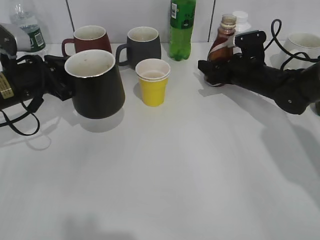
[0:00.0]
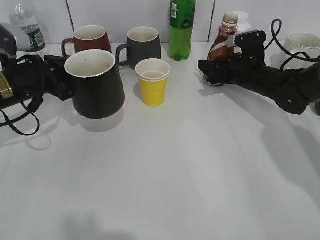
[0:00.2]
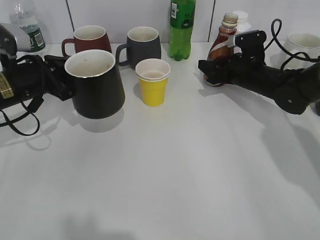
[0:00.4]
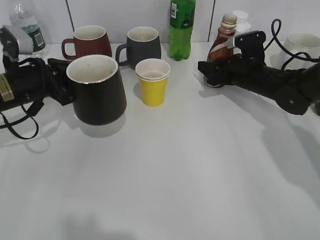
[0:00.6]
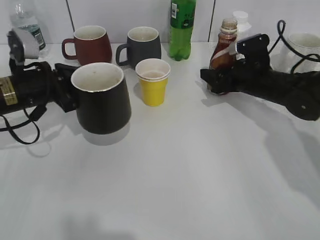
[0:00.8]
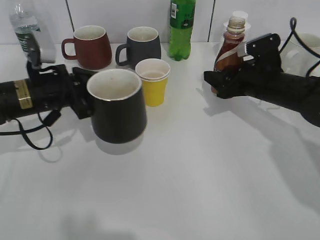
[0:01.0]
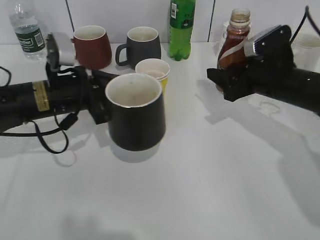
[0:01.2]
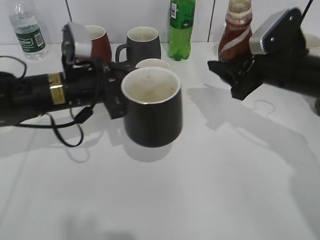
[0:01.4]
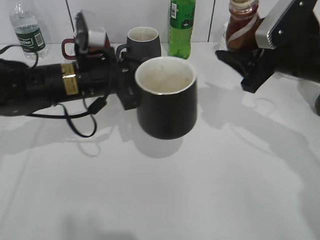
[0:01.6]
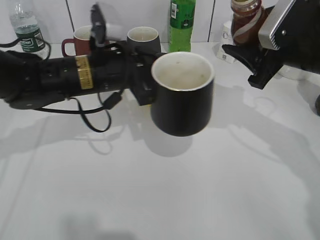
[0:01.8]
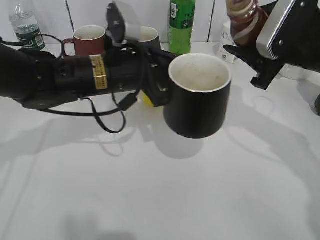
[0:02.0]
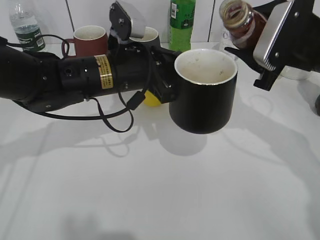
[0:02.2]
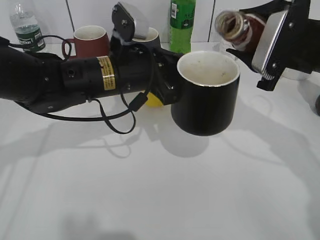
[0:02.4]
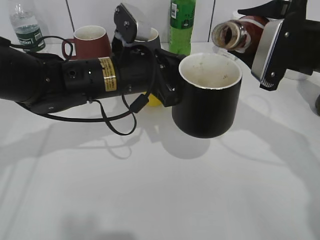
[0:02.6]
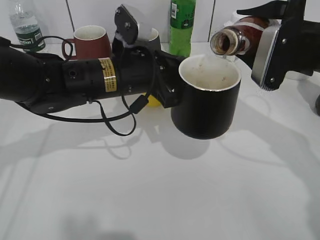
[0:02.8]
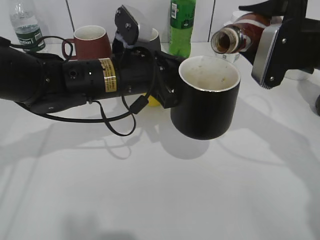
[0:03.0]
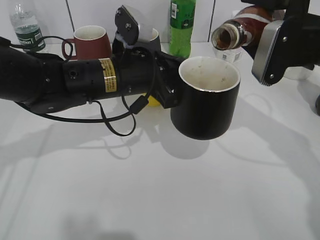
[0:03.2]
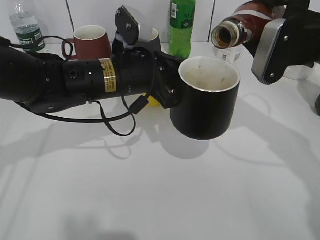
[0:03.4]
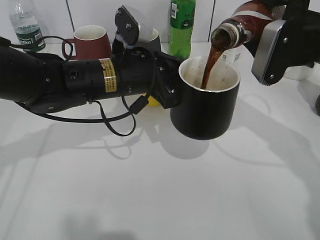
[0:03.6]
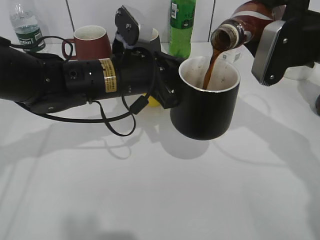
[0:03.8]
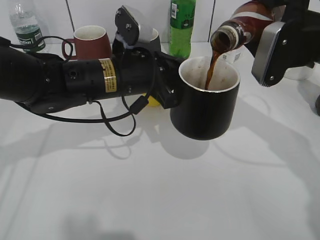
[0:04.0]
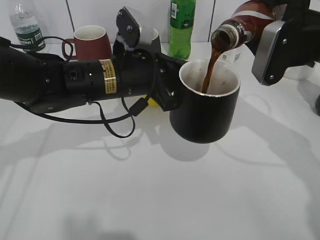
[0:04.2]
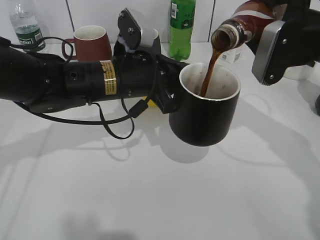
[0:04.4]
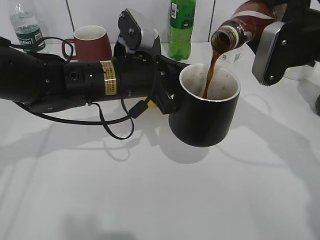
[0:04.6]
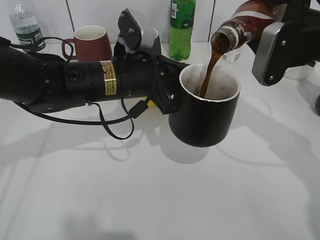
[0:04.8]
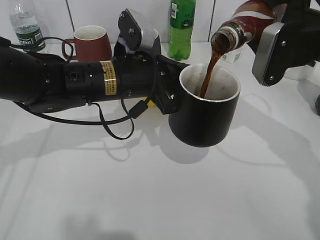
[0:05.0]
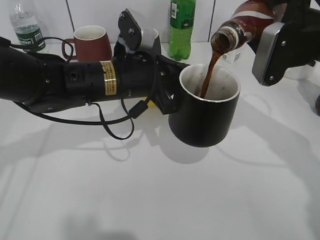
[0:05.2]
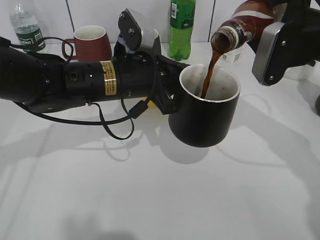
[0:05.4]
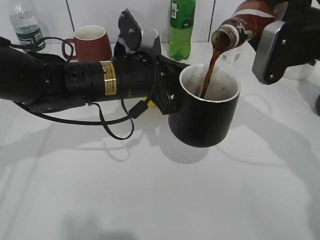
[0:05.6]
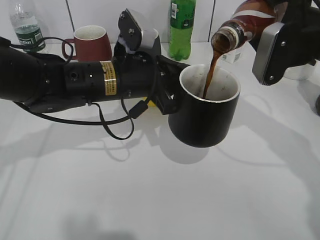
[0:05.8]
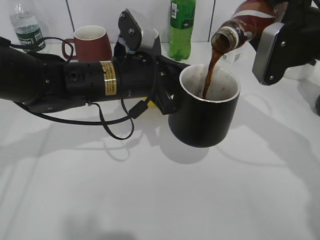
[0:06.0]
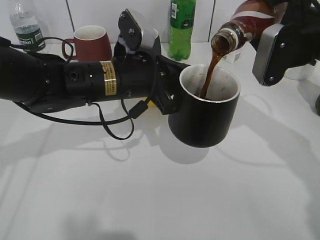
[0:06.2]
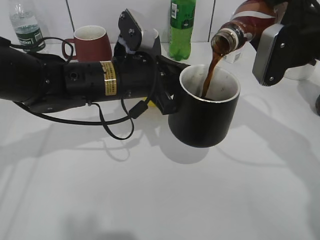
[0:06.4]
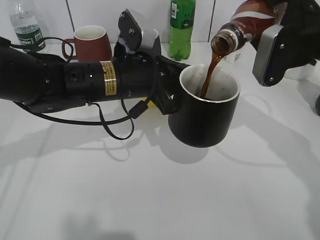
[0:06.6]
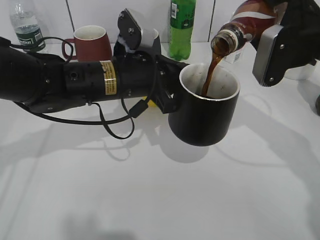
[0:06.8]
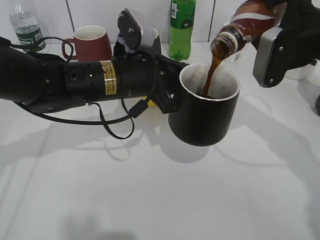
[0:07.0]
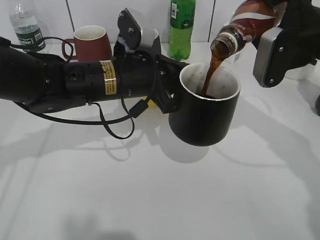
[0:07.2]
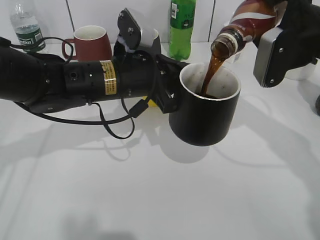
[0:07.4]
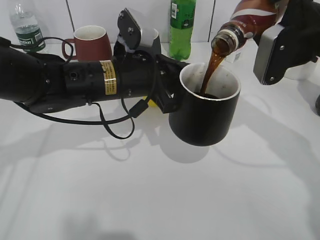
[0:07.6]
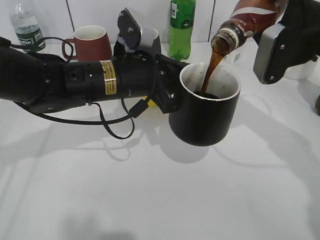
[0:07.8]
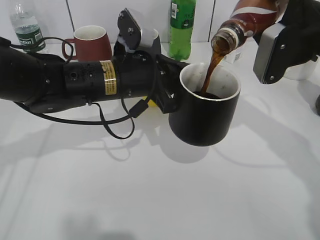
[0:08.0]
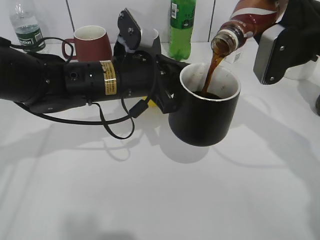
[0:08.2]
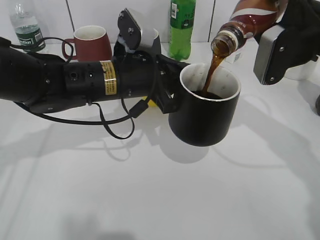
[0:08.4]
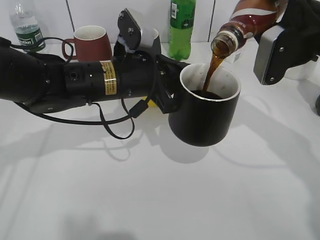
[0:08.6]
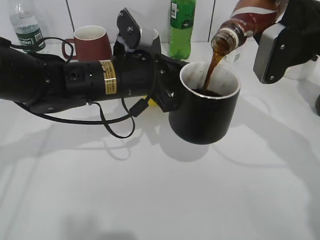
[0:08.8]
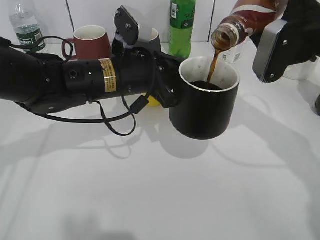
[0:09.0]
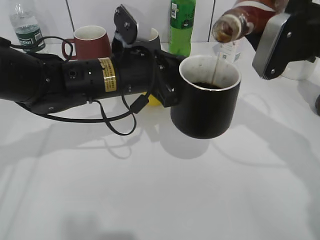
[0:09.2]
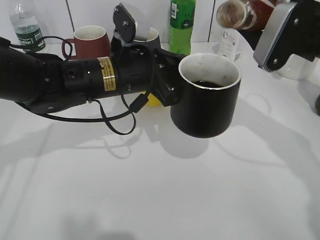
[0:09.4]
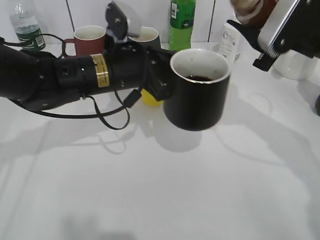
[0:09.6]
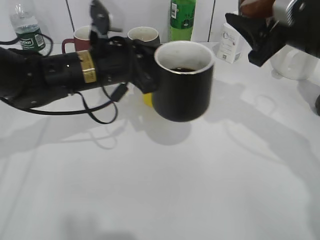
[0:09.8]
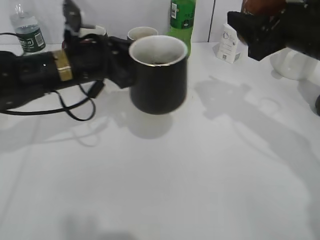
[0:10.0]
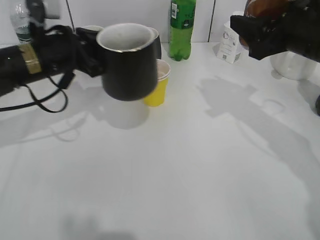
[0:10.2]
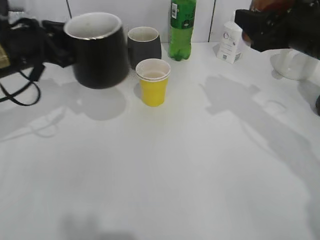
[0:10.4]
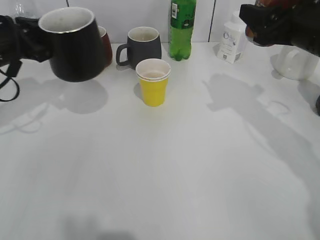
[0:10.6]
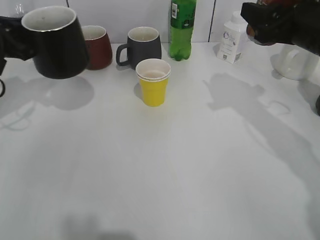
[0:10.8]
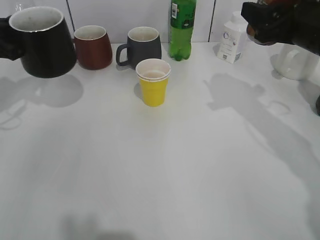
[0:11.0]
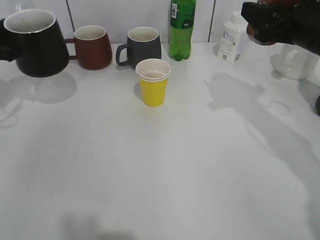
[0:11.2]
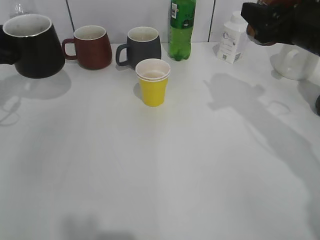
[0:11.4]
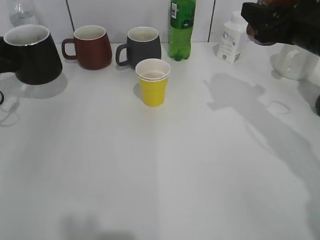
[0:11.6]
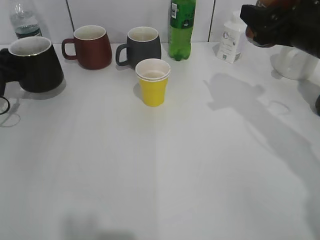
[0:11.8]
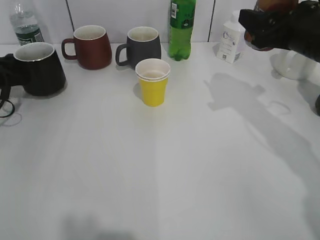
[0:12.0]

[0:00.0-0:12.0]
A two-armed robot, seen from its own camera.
Step, 0:00.8 to 0:09.2: Pour the coffee from bottle to cup with right gripper.
0:00.0 to 0:01.6: The right gripper moves backward and upward, some 20 cm; the left gripper travels to the right by about 10 cm.
0:01.6 to 0:03.0: The left gripper goes approximately 5 cm to the right.
0:03.0 to 0:04.4: The grippers stay close to where they were, moving slightly.
0:04.4 to 0:06.0: Both grippers stay put.
0:06.0 to 0:07.6: The grippers make only small movements.
0:07.6 to 0:09.0: The two grippers keep their place.
0:09.0 to 0:10.4: The left gripper is displaced to the left by about 15 cm.
0:10.4 to 0:12.0: The left gripper shifts some 20 cm to the left, downward and forward.

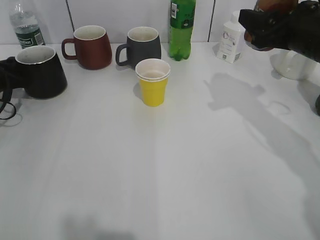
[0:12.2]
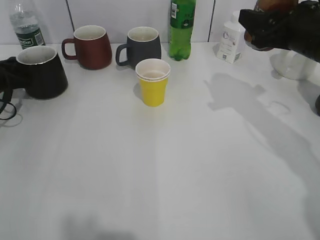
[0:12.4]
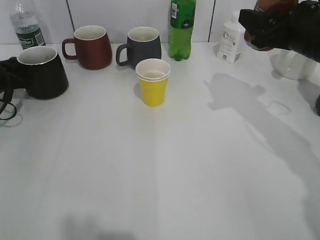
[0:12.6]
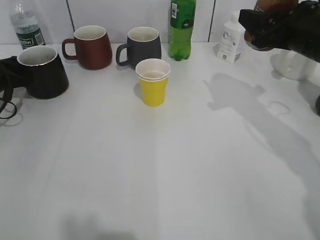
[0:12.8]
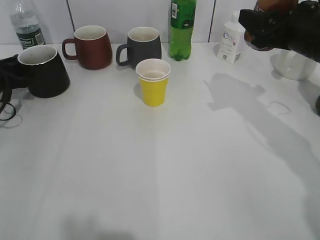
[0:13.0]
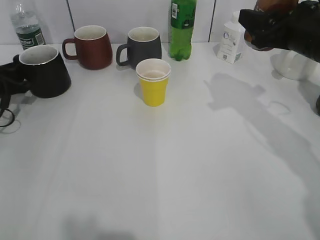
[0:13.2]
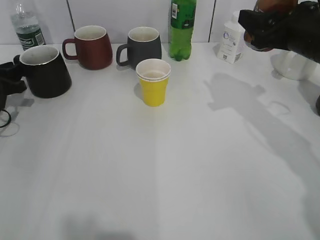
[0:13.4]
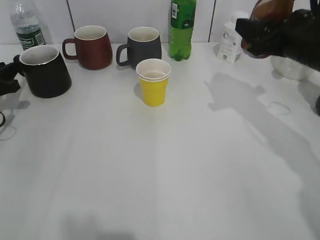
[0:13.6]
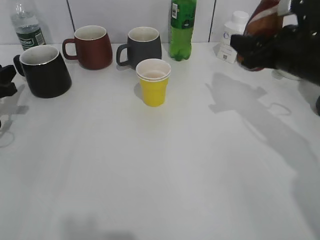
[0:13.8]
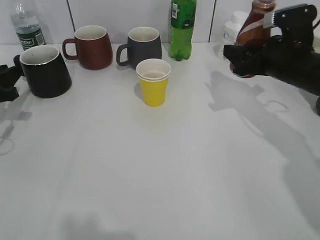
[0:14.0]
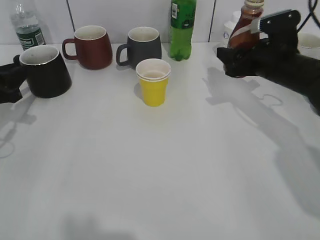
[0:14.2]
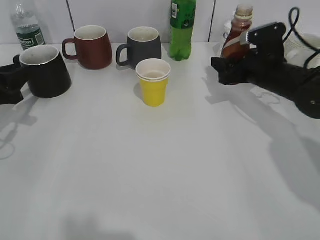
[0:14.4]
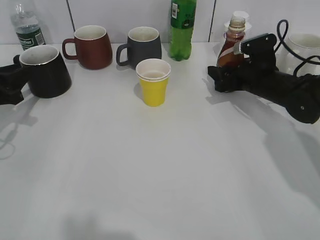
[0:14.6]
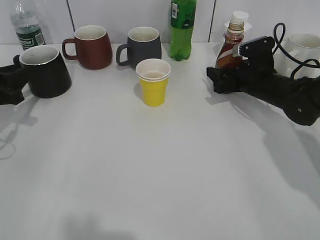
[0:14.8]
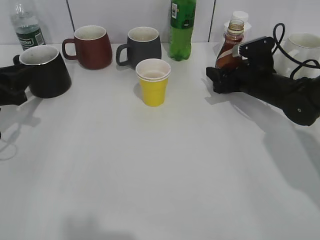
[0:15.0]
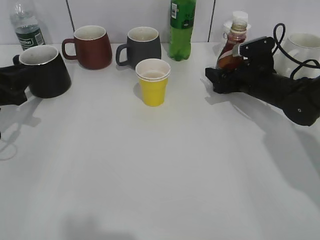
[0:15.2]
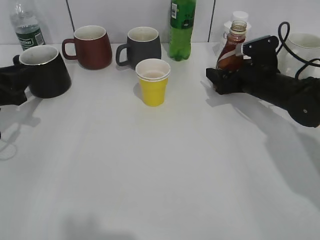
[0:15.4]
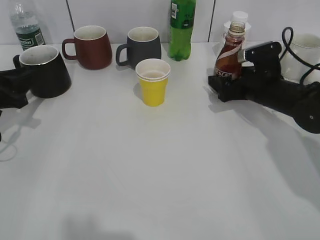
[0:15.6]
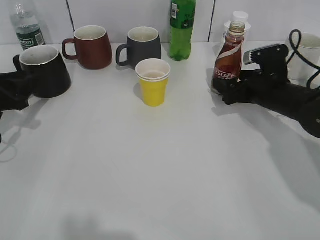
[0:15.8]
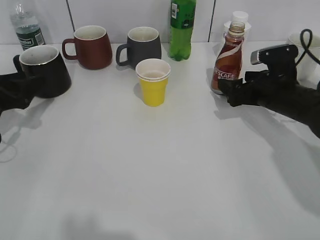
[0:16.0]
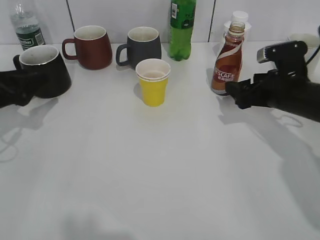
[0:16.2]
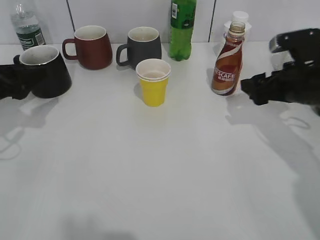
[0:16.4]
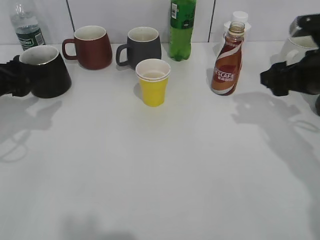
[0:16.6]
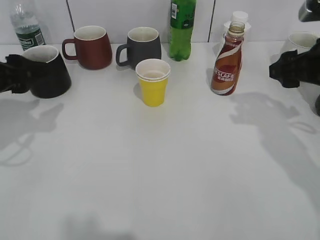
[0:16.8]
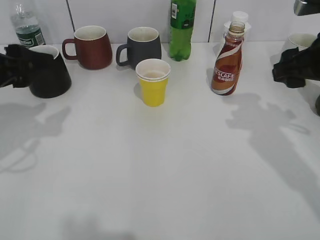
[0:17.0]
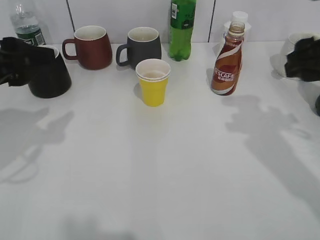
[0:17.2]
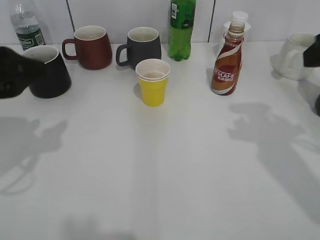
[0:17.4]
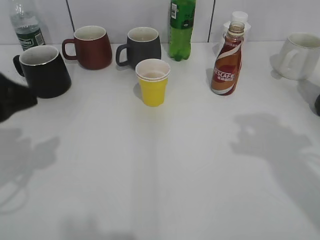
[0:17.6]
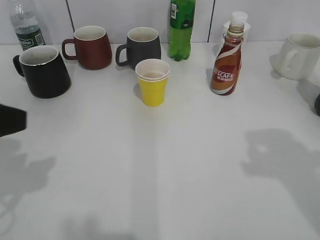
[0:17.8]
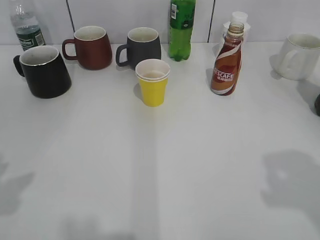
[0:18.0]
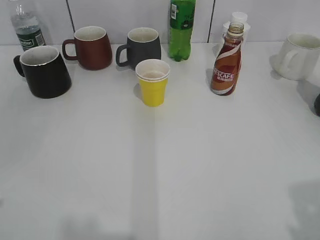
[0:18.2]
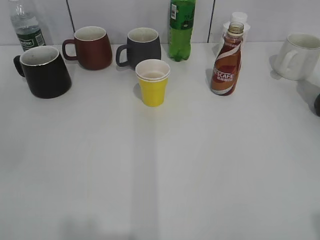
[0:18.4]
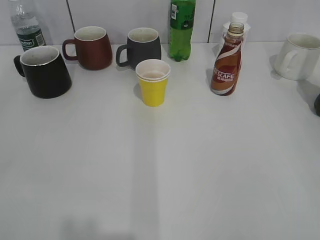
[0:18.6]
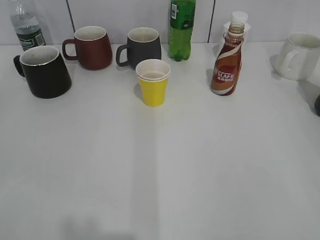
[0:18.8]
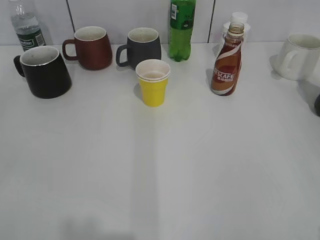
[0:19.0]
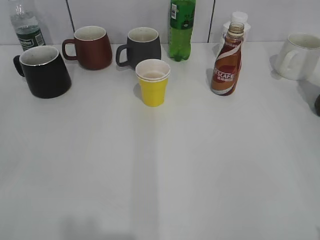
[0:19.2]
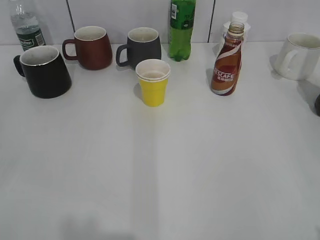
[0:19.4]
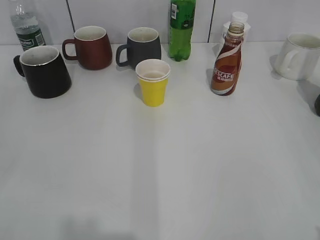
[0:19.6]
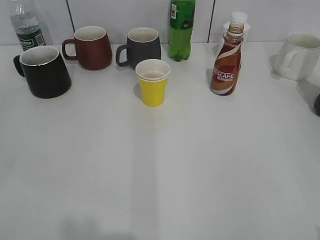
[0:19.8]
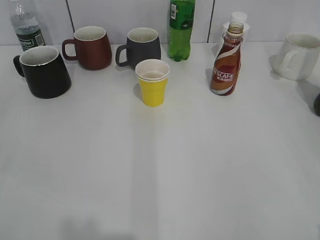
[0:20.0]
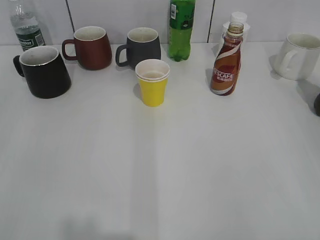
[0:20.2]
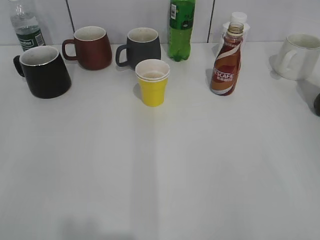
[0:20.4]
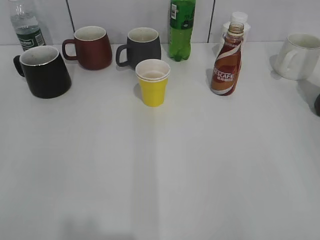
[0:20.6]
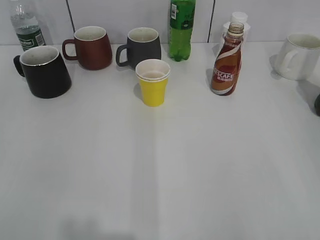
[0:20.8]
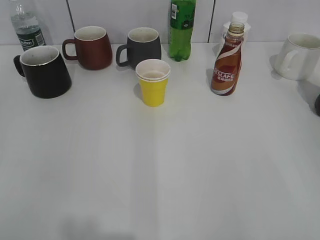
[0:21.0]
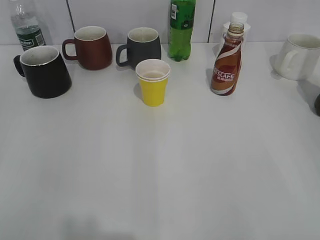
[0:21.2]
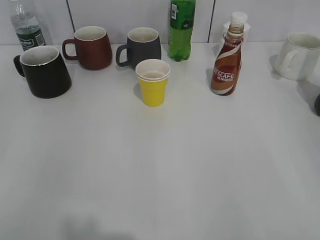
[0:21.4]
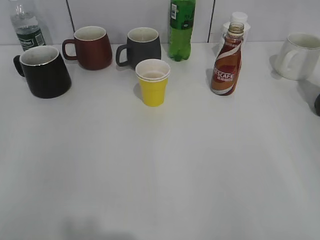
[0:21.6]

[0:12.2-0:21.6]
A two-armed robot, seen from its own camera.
Step, 0:13.8 to 0:15.6: Place the coffee bottle on the table with right gripper.
0:12.2 to 0:13.8: The left gripper moves backward, about 5 cm, and opens up.
0:13.8 to 0:15.4: The right gripper heads downward and forward, covering roughly 10 cm, and opens its fingers.
0:15.4 to 0:17.0: The right gripper shifts approximately 20 cm upward and backward, and closes up; the left gripper goes roughly 15 cm upward, backward and to the right, and opens up.
0:17.0 to 0:18.4: The grippers both shift backward by about 25 cm.
